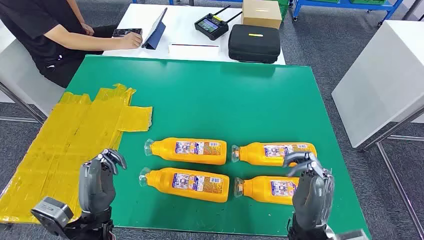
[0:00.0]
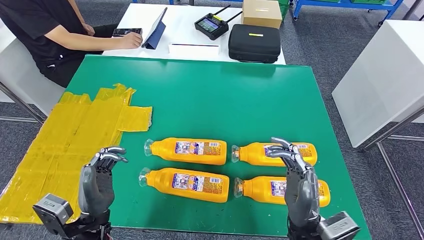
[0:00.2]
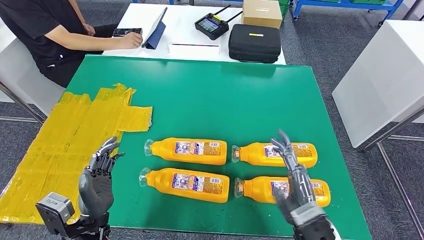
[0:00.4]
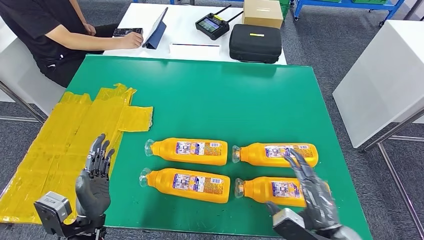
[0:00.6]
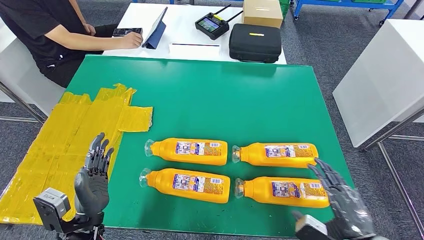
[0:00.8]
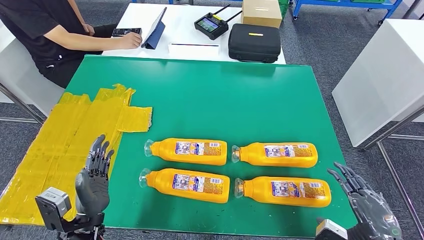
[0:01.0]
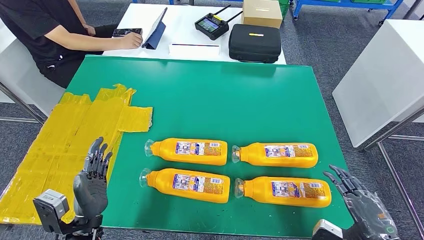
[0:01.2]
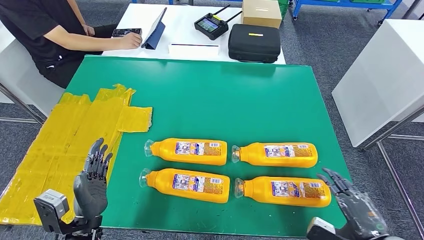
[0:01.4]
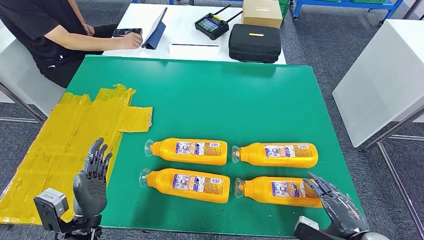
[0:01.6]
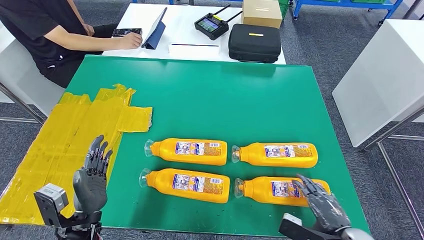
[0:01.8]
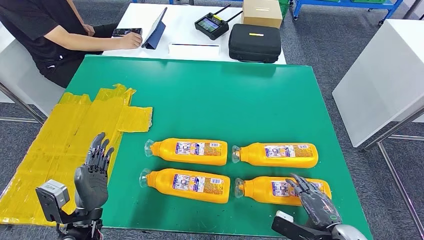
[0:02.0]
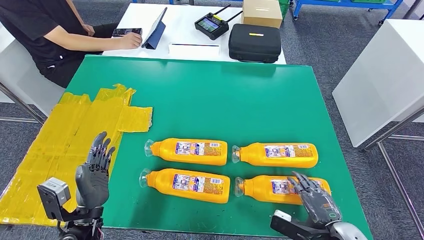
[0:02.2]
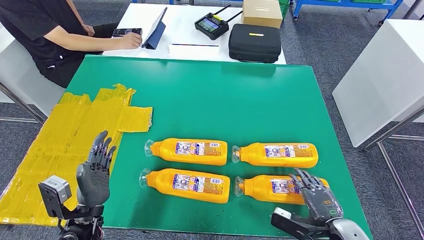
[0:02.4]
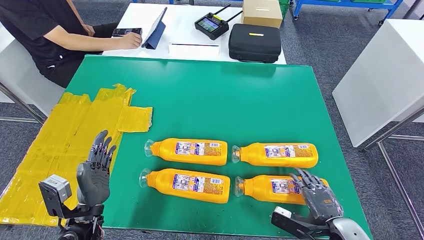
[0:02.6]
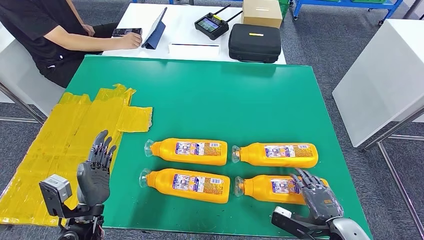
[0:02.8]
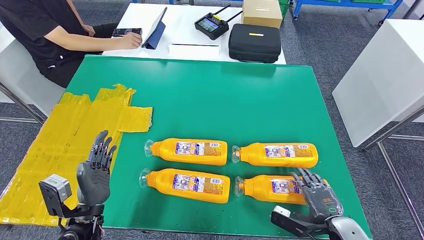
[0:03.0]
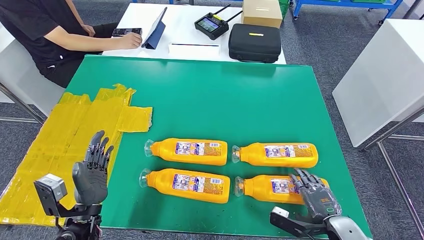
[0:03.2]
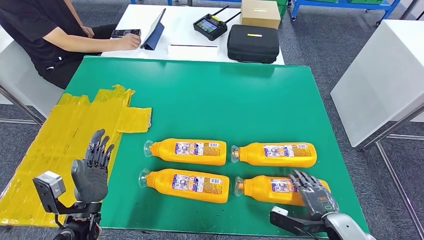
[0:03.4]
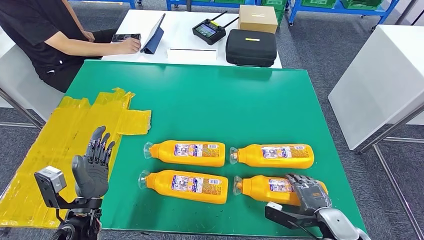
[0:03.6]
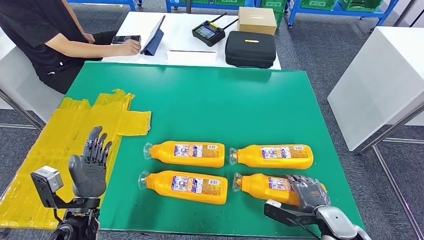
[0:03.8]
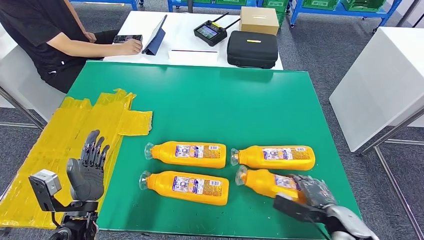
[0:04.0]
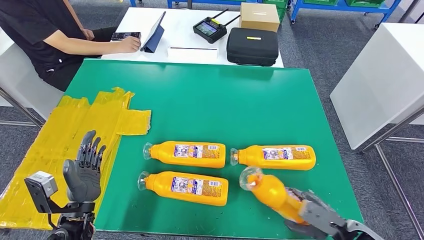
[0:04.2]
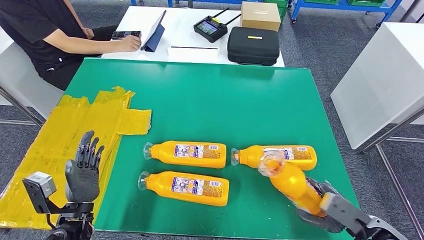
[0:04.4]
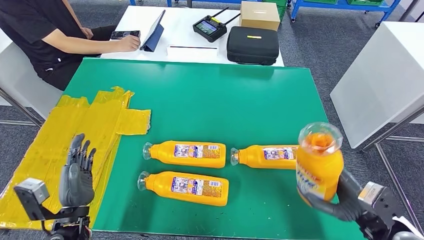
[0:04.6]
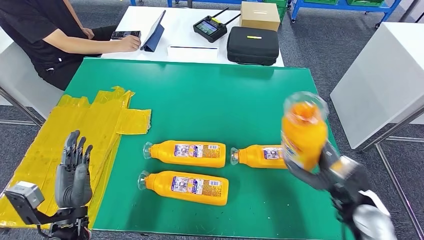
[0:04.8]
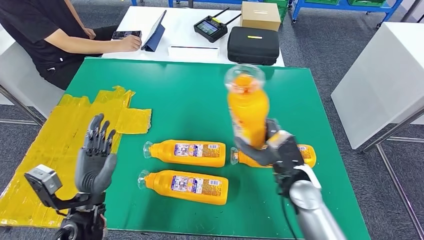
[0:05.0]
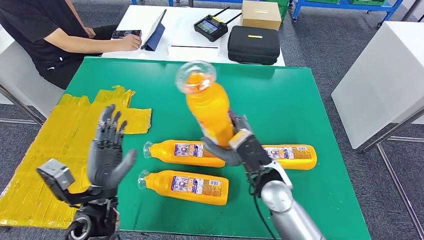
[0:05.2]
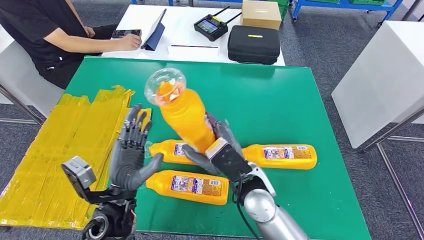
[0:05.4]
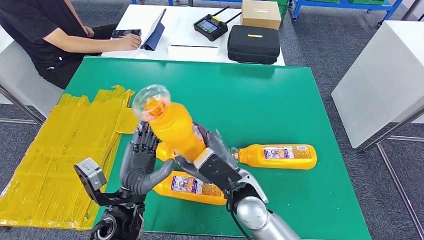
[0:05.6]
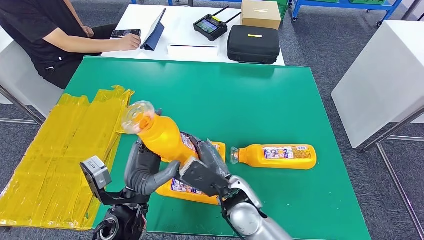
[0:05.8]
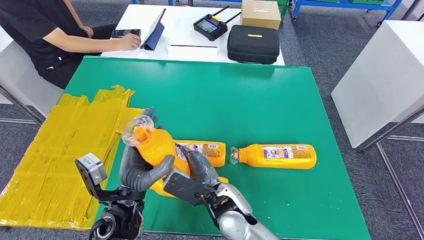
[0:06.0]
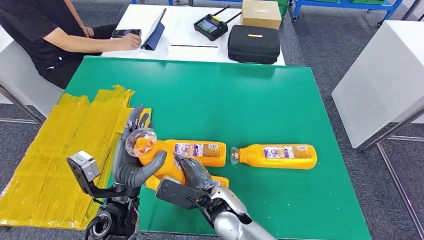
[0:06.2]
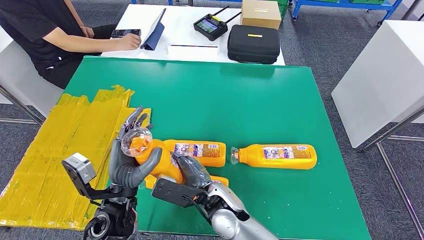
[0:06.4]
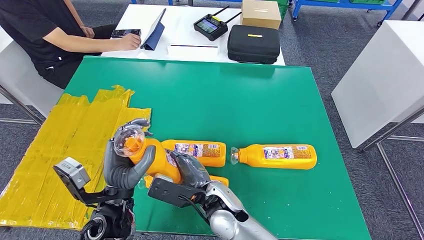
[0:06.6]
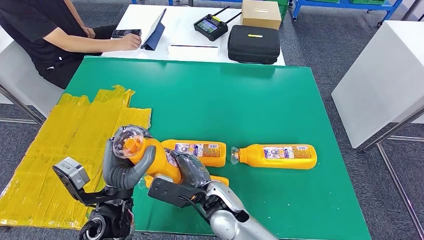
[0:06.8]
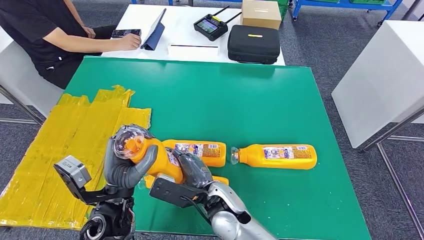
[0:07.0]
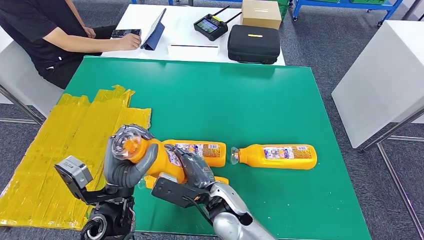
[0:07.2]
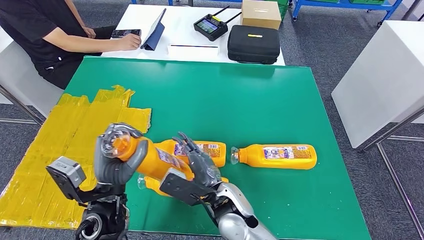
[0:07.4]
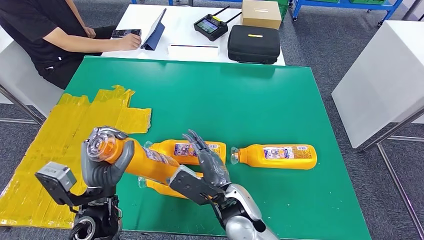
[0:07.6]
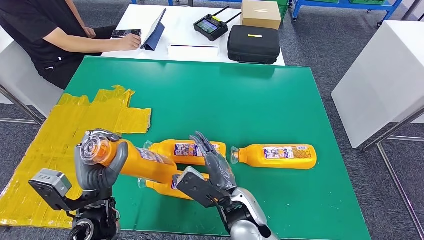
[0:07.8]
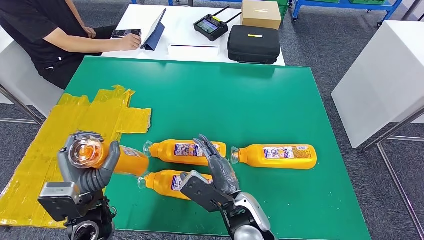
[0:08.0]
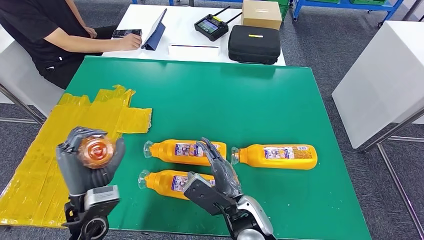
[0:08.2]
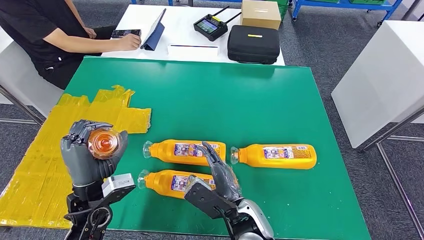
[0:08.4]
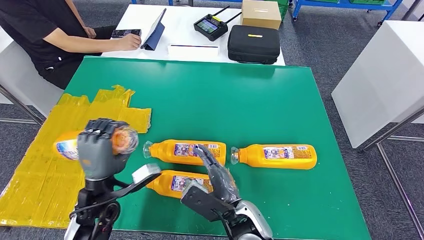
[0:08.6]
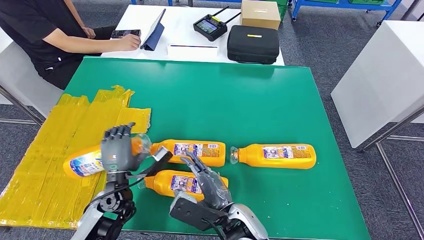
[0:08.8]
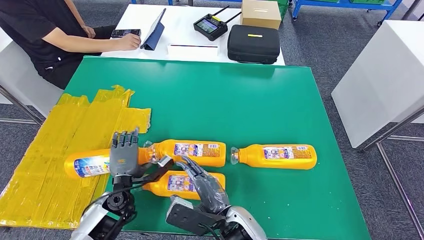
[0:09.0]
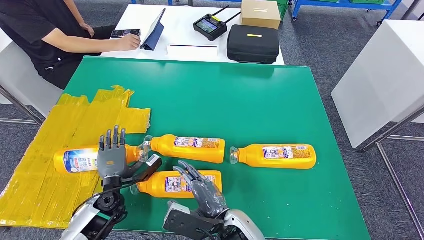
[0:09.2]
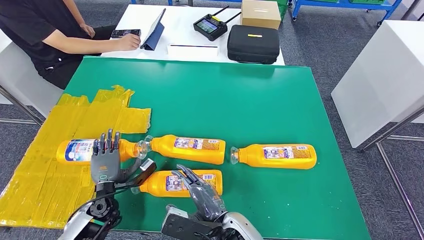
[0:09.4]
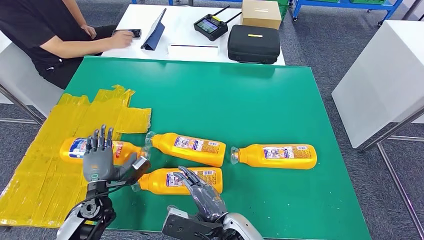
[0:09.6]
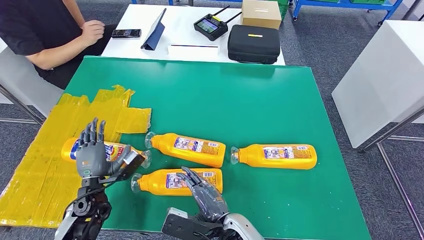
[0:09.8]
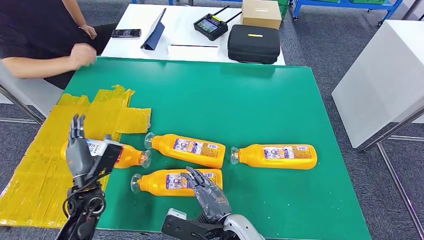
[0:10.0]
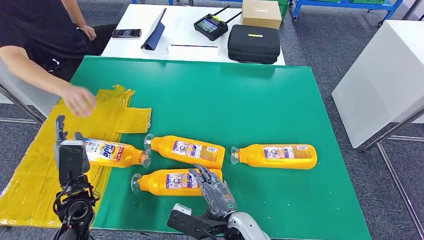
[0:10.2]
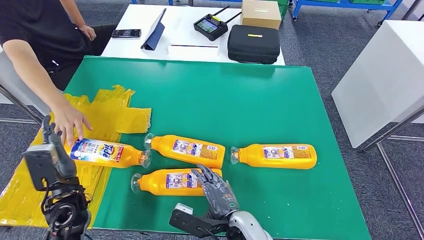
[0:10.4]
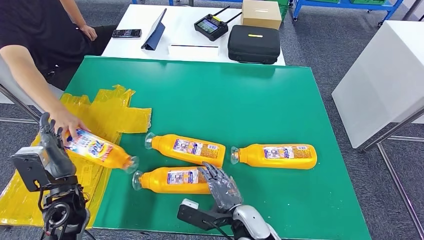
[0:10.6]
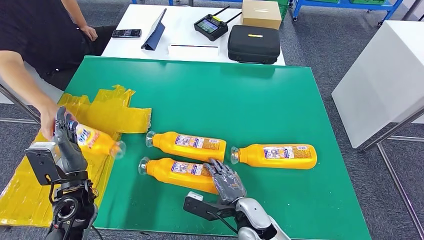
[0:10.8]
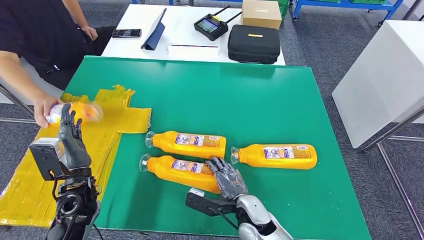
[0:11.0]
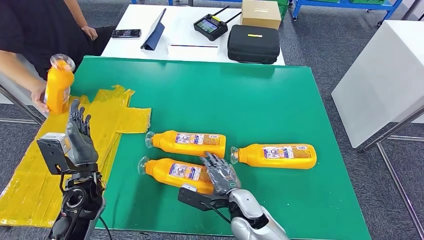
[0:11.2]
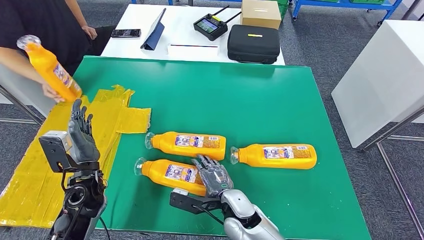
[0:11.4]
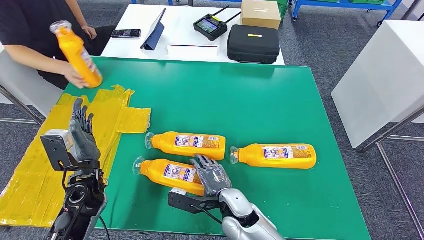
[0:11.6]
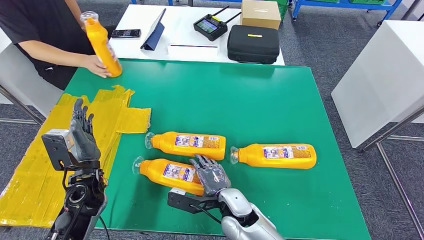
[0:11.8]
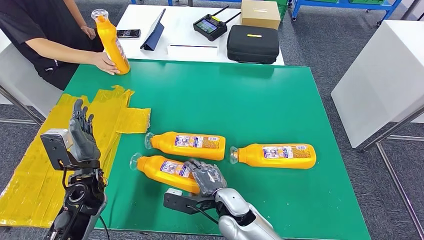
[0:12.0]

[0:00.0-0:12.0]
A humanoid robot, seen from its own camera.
Step, 0:00.0 to 0:05.0: Take the bottle from the table.
Step, 0:05.2 to 0:10.4: Flip the bottle to face forward.
0:01.6 to 0:03.0: The right hand changes place by approximately 5 cm.
0:06.0 to 0:07.6: The left hand heads to the left, covering some 5 cm.
0:07.6 to 0:09.0: The left hand moves downward, roughly 10 cm. Meanwhile the right hand shifts by about 5 cm.
0:09.0 to 0:10.4: The left hand heads upward and to the left, covering some 10 cm.

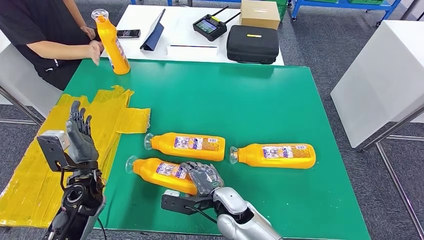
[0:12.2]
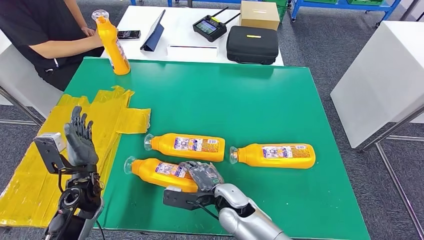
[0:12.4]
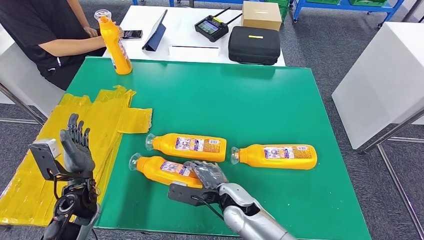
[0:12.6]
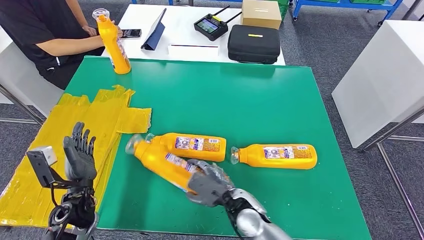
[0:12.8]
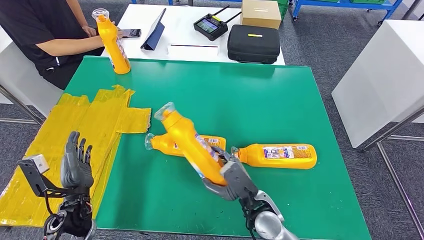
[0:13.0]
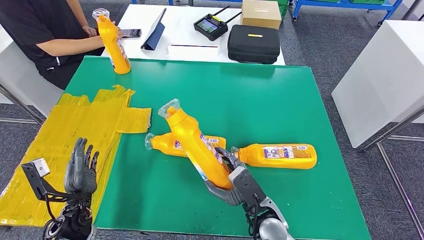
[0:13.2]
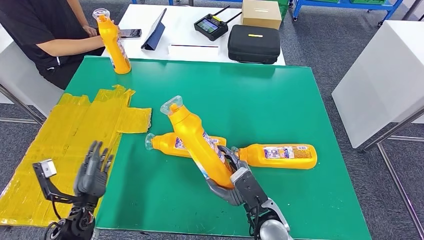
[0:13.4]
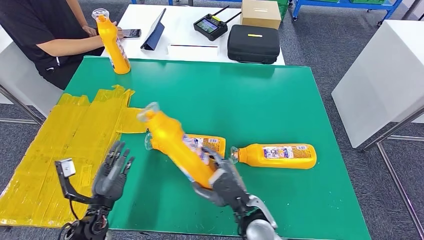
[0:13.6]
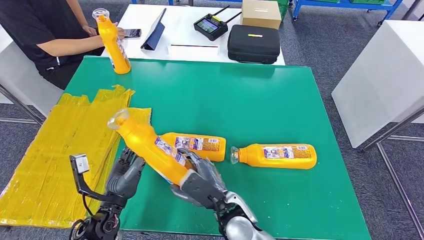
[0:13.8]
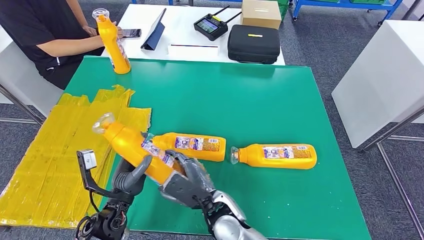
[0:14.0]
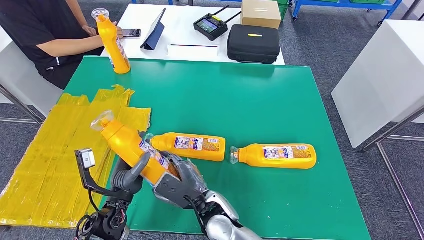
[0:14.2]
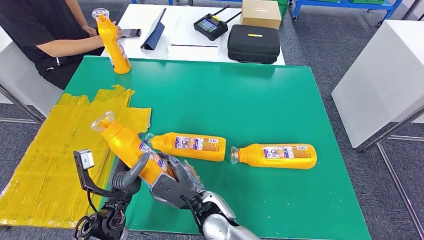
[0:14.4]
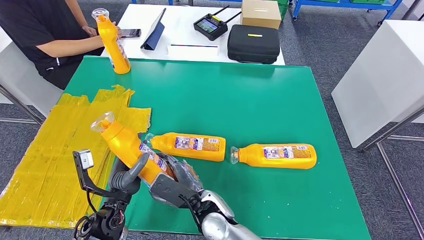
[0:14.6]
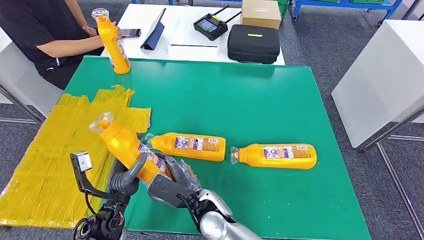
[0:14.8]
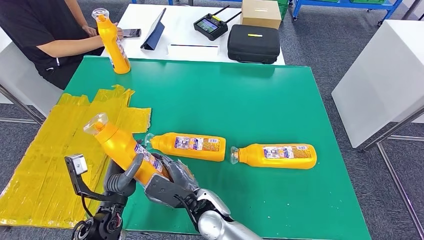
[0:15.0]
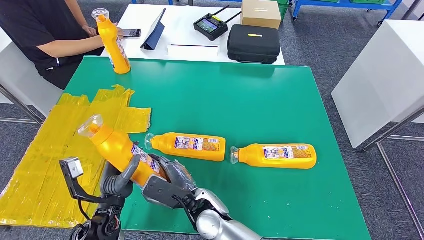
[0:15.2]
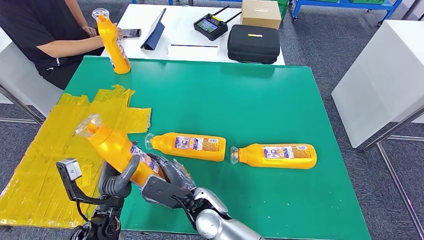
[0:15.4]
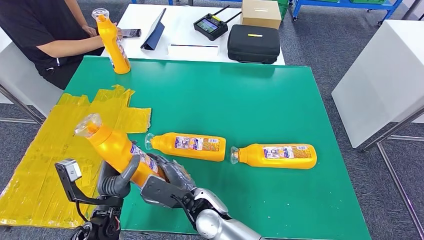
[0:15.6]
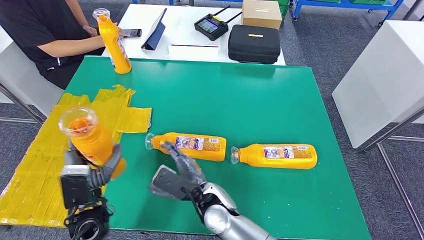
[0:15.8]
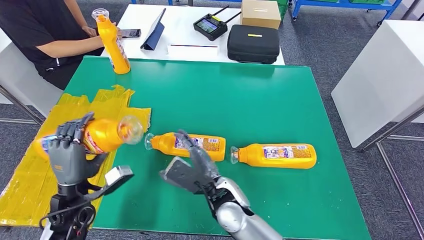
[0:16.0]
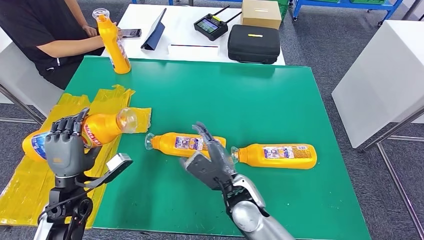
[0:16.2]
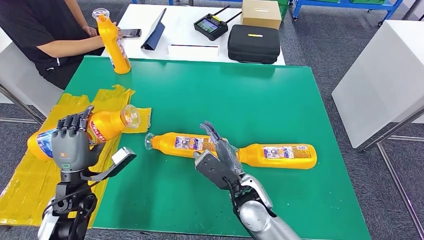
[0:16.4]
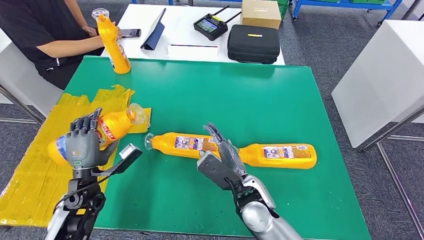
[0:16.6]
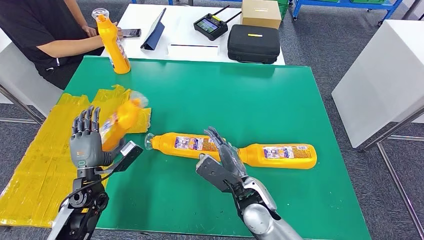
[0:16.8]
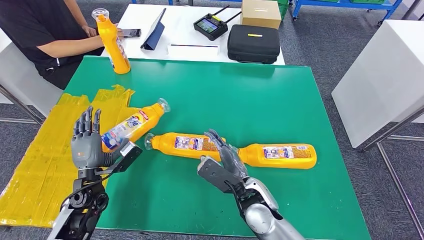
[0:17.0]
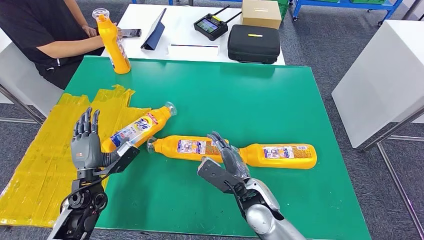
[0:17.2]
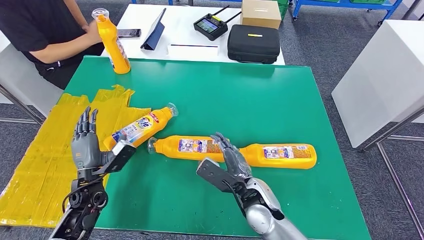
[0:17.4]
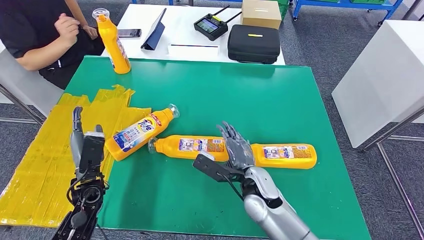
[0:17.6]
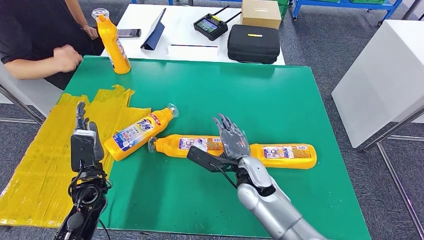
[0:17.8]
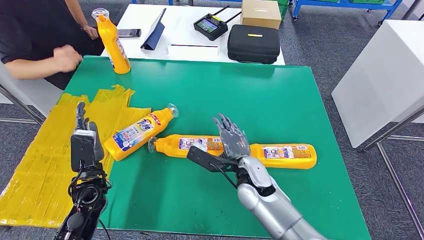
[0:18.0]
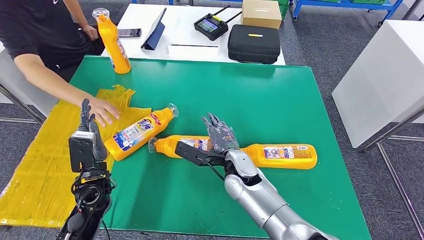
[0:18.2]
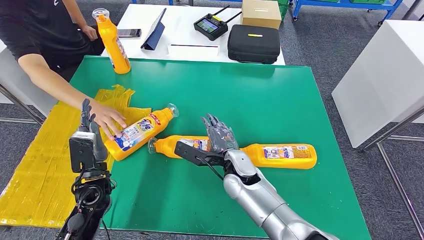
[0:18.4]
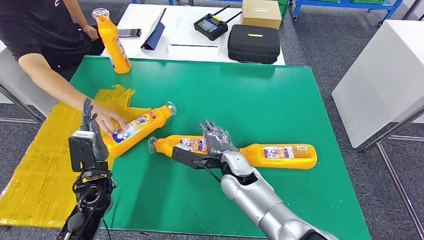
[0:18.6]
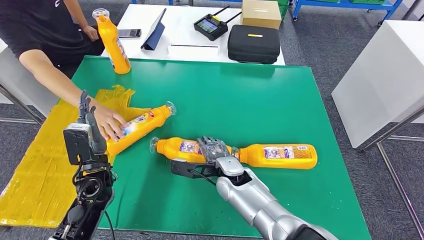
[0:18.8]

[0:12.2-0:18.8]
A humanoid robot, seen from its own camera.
Step, 0:13.6 to 0:18.6: Flip the bottle to face forward.
0:12.2 to 0:13.8: The left hand travels backward and to the right by roughly 10 cm, while the right hand moves roughly 10 cm to the right and comes back.
0:13.8 to 0:15.4: The right hand shifts roughly 5 cm to the left.
0:15.4 to 0:17.2: The left hand goes some 10 cm to the left and forward. The right hand heads to the right, covering about 15 cm.
0:17.2 to 0:18.8: The right hand shifts roughly 10 cm forward and to the left; the left hand goes about 5 cm upward.
